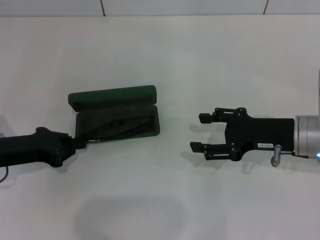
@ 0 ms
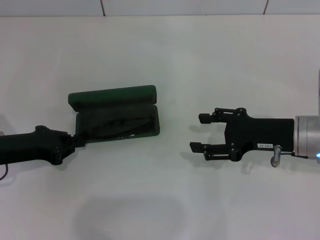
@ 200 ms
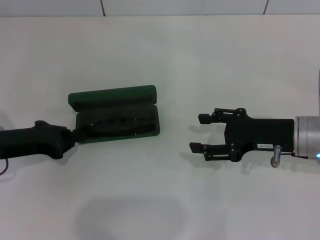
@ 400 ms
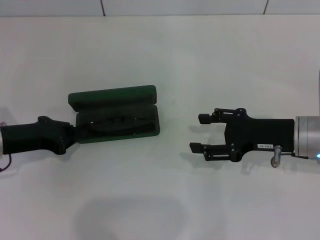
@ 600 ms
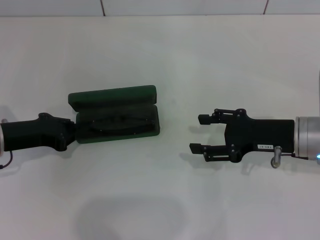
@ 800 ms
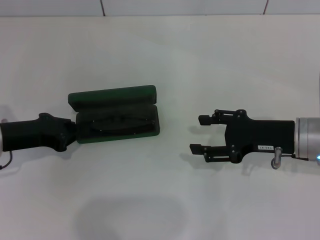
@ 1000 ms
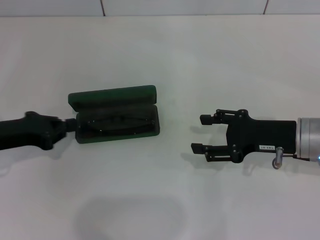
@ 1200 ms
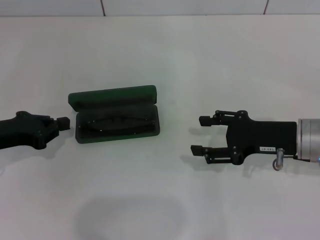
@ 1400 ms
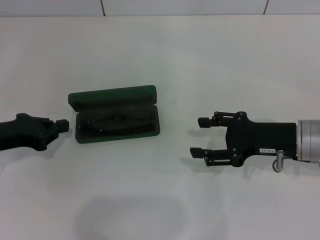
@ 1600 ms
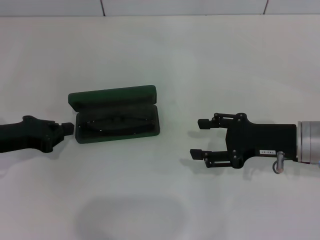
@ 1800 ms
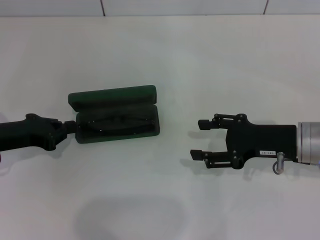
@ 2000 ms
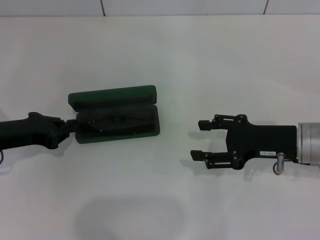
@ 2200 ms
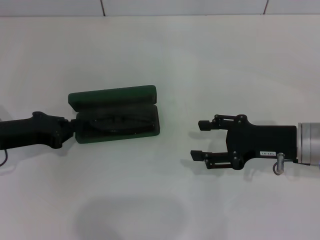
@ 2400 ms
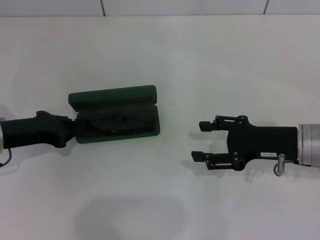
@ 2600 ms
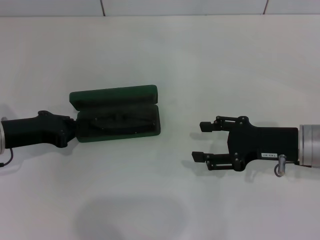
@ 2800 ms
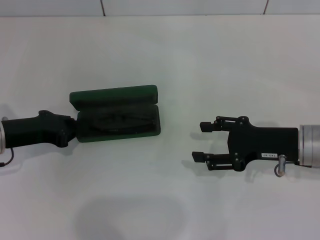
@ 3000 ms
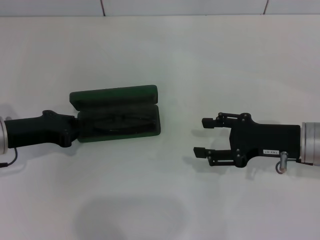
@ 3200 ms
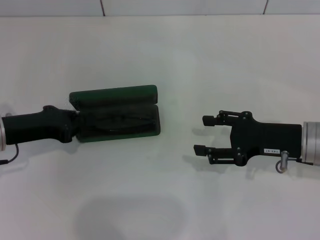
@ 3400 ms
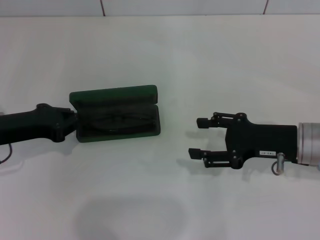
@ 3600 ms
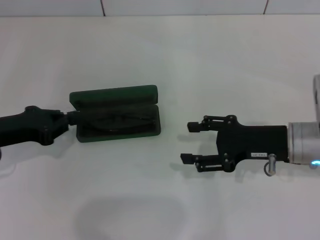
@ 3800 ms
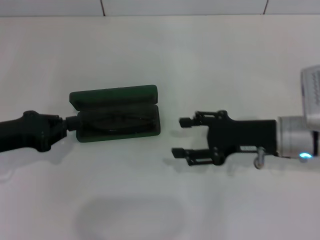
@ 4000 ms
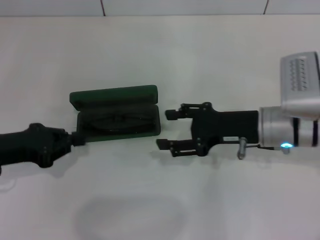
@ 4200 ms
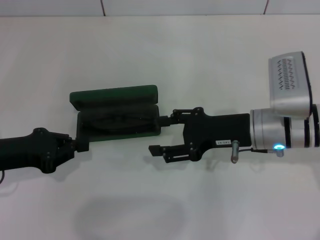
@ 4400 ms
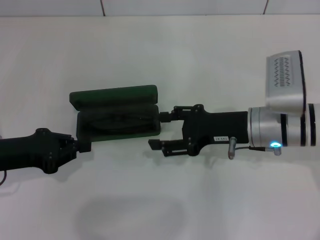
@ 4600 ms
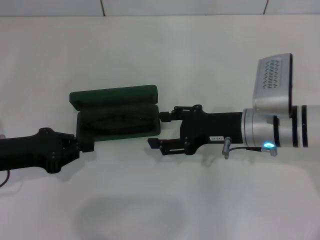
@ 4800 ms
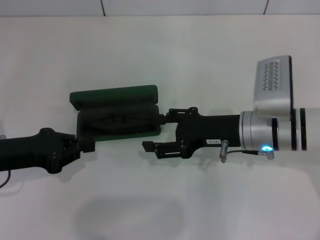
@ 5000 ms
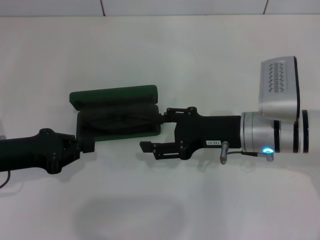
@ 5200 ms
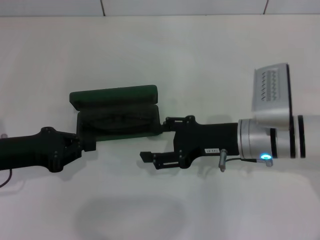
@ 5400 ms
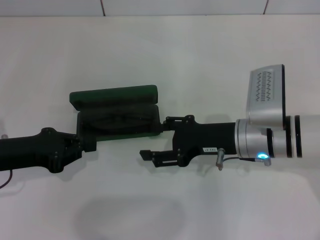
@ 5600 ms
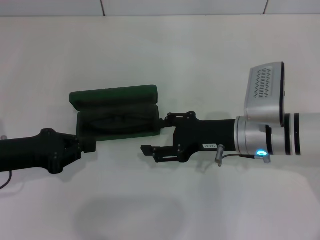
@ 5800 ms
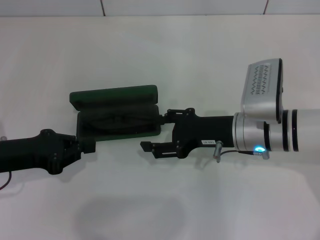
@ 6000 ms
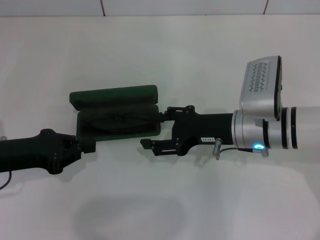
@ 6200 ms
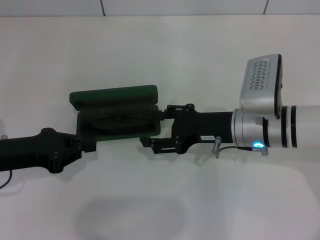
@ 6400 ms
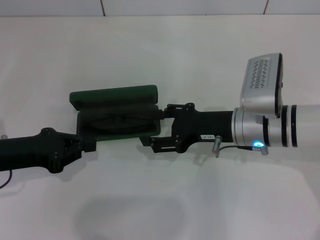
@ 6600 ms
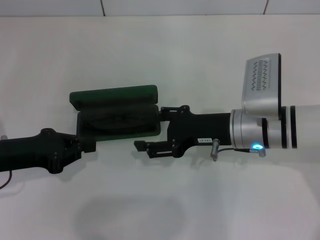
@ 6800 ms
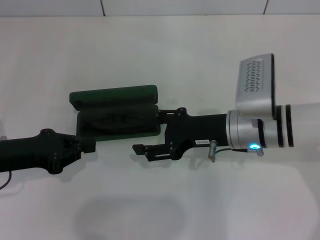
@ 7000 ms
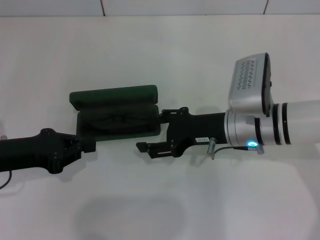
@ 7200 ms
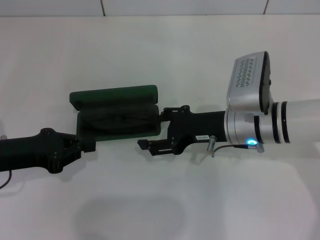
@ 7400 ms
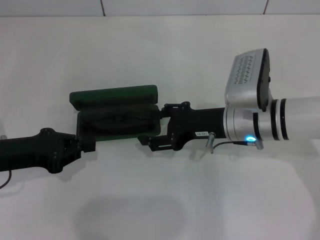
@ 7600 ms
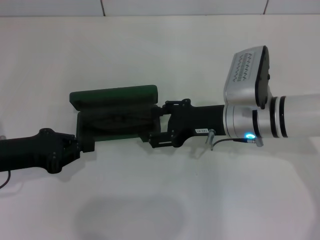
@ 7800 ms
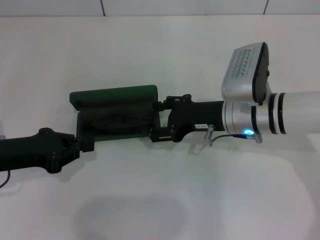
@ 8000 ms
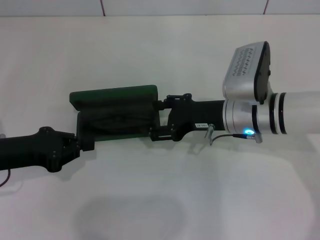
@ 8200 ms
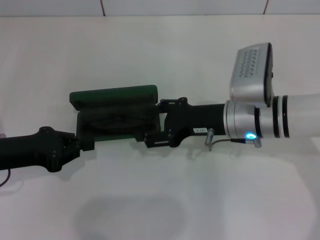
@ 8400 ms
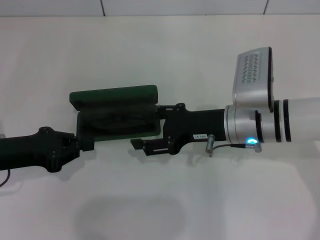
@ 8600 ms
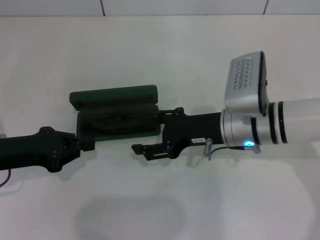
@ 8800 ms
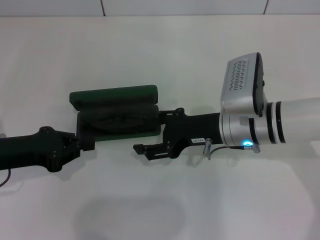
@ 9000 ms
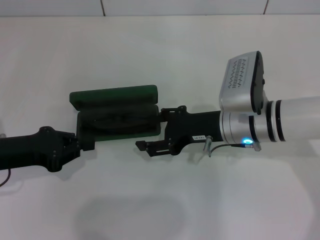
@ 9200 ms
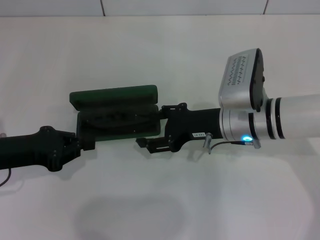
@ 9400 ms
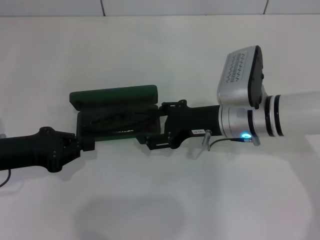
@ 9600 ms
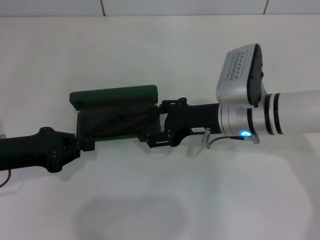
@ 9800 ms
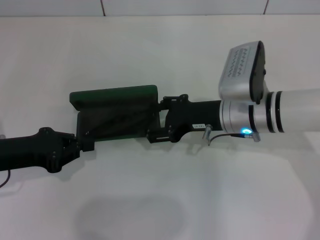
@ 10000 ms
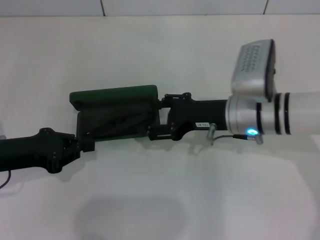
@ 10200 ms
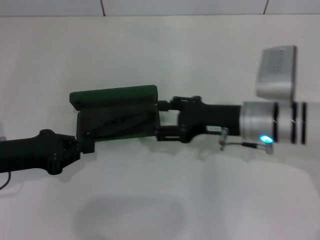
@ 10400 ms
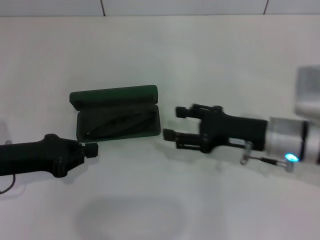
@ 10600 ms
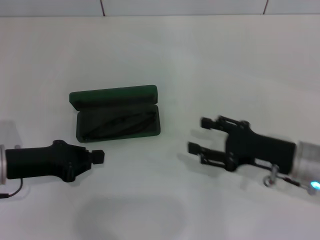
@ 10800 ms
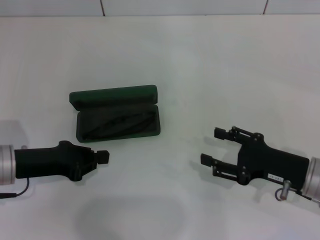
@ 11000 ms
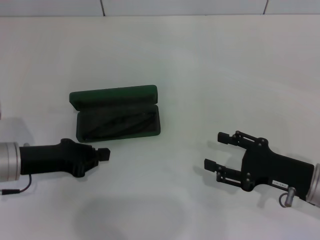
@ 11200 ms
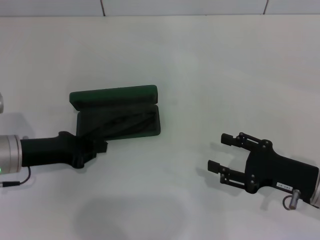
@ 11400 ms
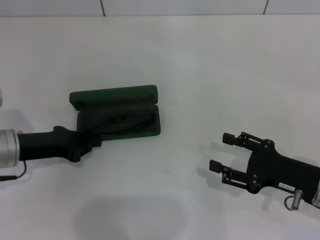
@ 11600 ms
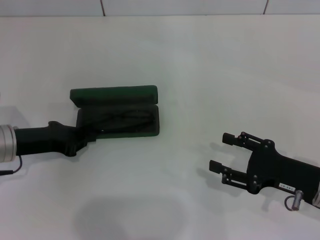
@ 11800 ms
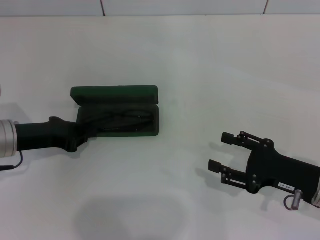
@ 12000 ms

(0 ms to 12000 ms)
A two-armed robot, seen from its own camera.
Step, 0 ms - 10000 ms: Put the glasses into the case with your right hand.
0 ms - 3000 ms: There are only small adjustments of the grippers.
3000 ms - 4400 ms: The right gripper shifts about 5 cm to the left.
4400 ms - 10400 ms: The grippers make only small movements.
10400 ms - 12000 ms: The right gripper goes approximately 15 cm to the right, backward and downward; the left gripper ends up about 5 cm from where it was.

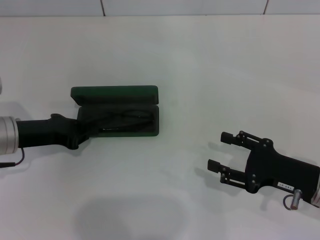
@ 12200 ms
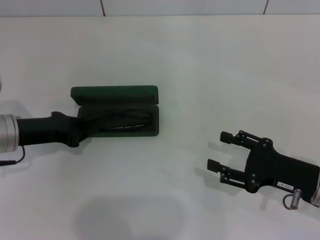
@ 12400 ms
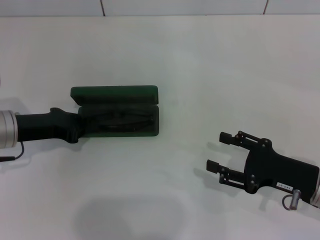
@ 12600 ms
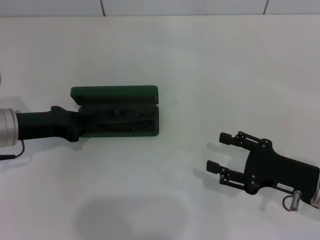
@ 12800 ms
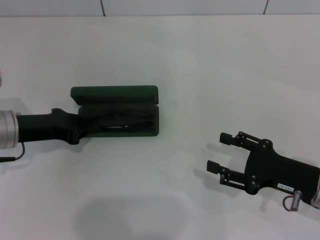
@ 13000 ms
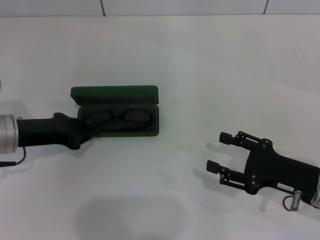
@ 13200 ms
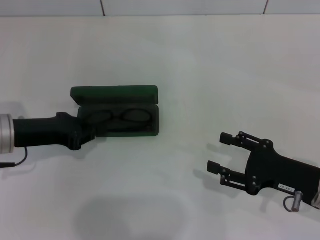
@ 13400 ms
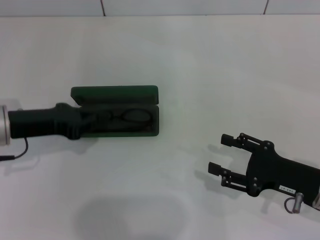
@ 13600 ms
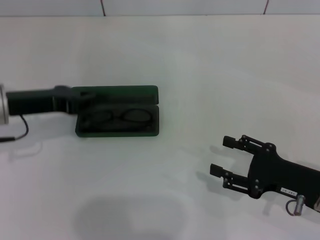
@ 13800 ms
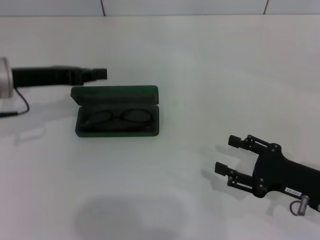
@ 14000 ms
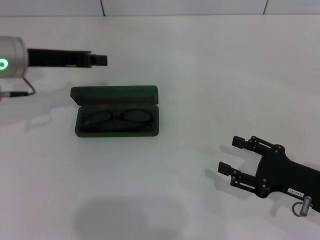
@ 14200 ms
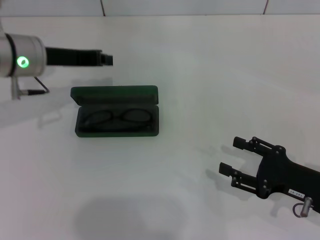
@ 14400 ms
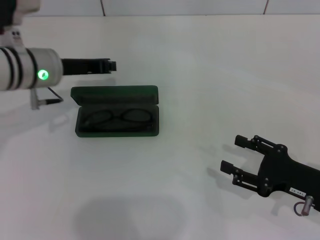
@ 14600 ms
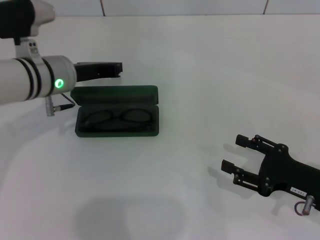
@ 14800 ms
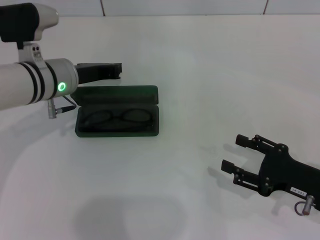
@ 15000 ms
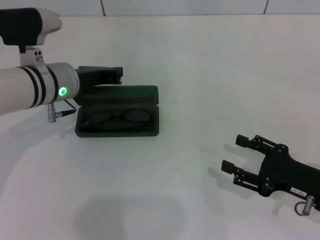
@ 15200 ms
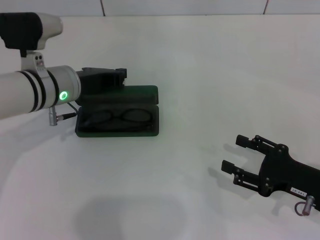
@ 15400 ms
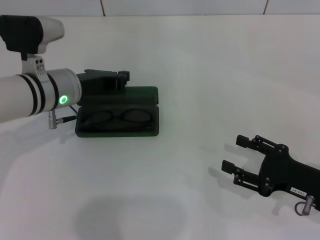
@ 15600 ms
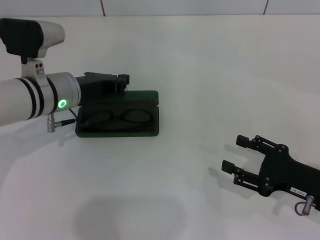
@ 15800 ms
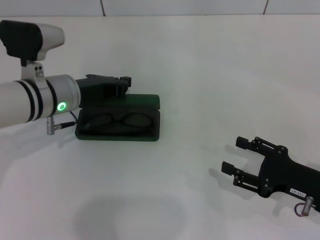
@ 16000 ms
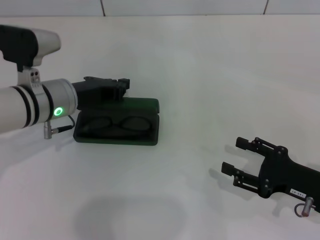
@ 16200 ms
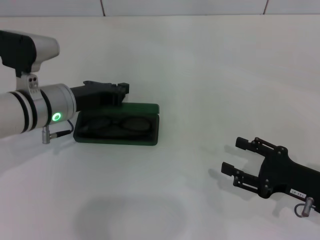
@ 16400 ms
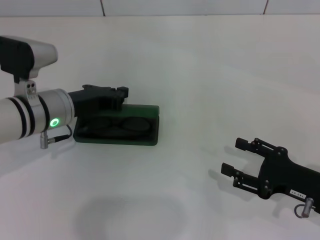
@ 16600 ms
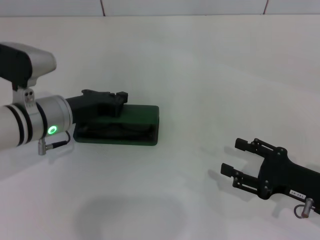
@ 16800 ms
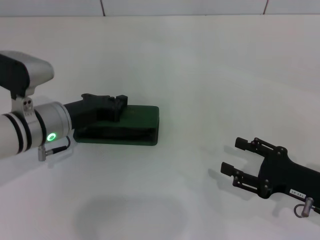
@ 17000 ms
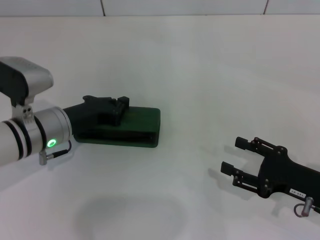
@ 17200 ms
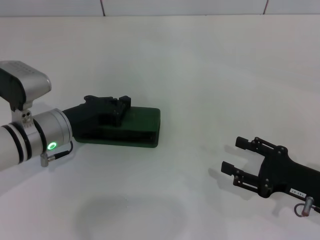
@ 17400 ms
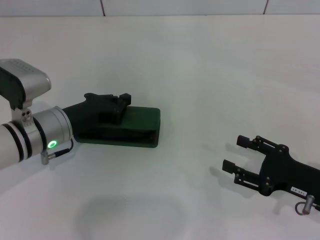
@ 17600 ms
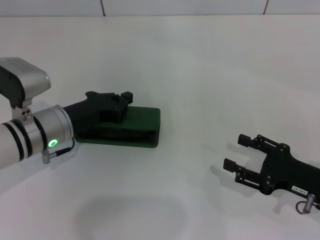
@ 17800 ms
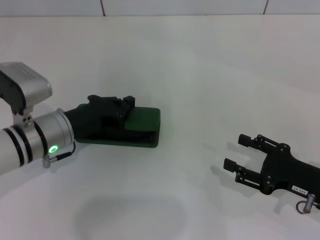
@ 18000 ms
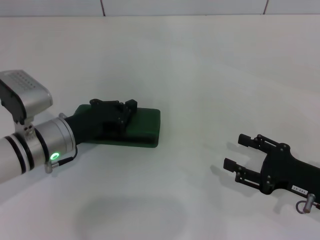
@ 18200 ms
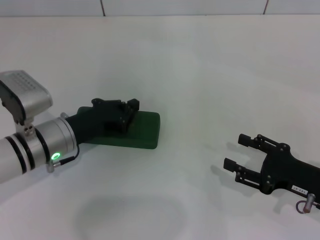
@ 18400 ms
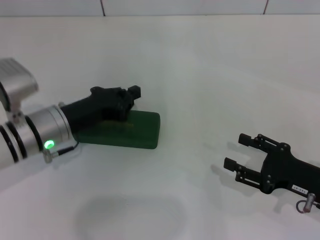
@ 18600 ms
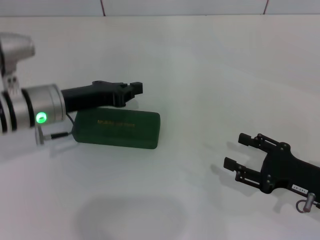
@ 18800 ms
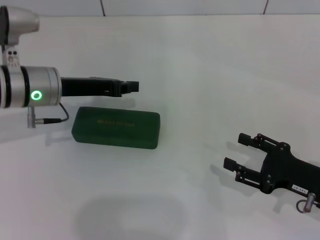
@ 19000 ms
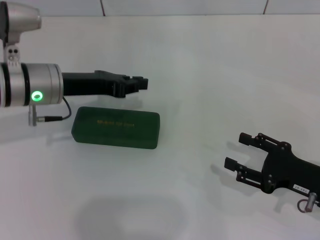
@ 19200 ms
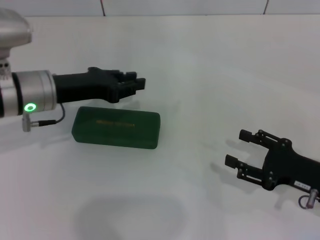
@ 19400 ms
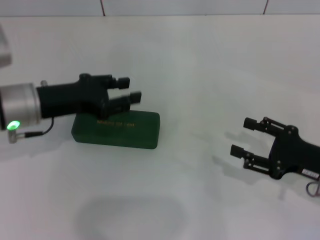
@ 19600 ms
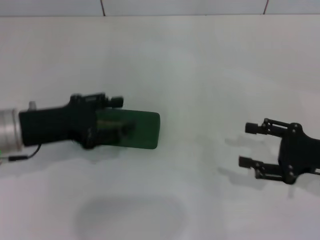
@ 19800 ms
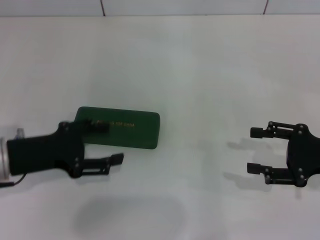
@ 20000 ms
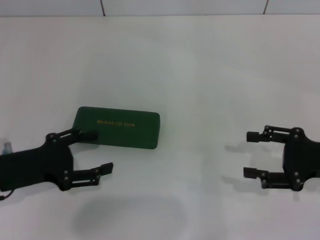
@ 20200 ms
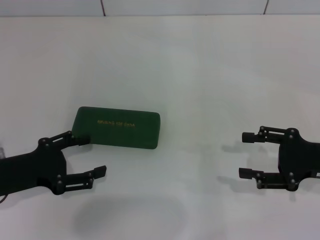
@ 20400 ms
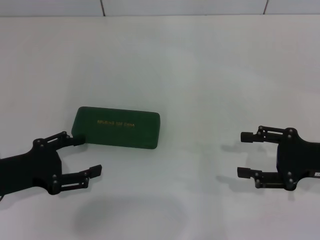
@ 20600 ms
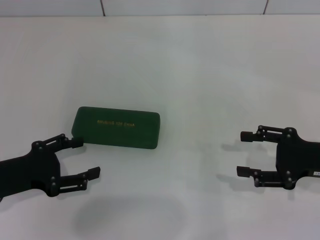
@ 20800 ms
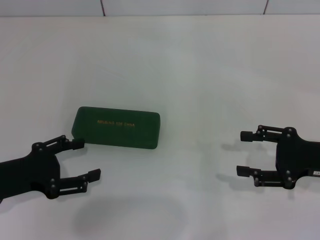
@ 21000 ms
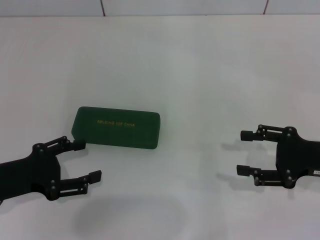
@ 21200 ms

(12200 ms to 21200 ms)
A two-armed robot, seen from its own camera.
Step, 12200 ms - 18200 ms: Close the glasses case with your left hand.
12200 ms - 13800 ms: The left gripper shifts about 5 cm upward.
13800 ms - 15200 ms: The left gripper goes about 10 cm to the right.
15200 ms - 16600 ms: The grippers make only small movements.
16600 ms - 18200 ms: The left gripper moves approximately 5 cm.
18200 ms - 19800 ms: The right gripper changes place by approximately 5 cm, while the left gripper heads upward, covering roughly 5 cm, and opens its fingers.
19800 ms - 21200 ms: The left gripper heads backward and to the left, covering about 10 cm, and opens its fingers.
